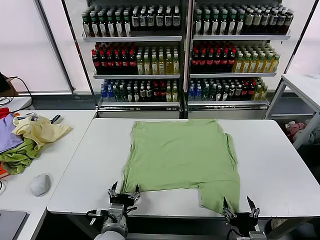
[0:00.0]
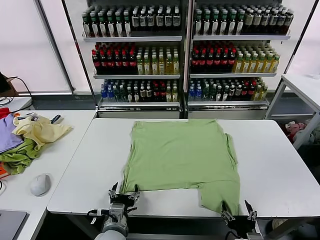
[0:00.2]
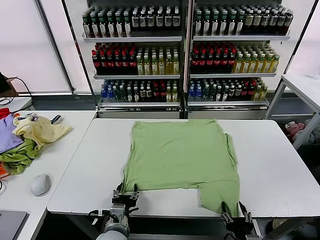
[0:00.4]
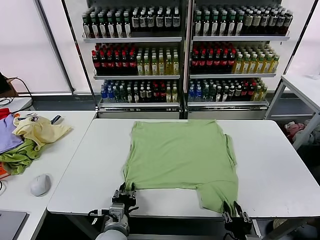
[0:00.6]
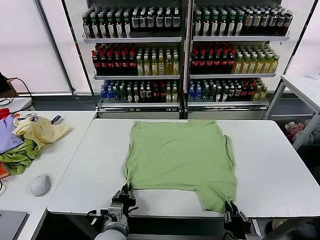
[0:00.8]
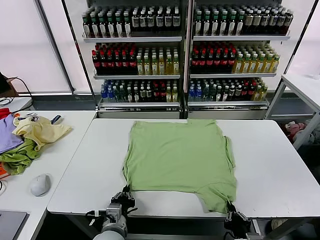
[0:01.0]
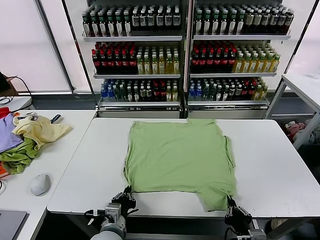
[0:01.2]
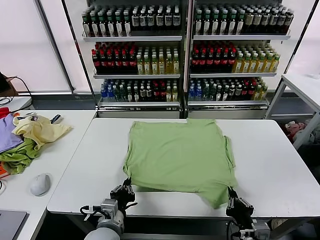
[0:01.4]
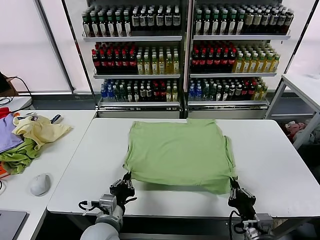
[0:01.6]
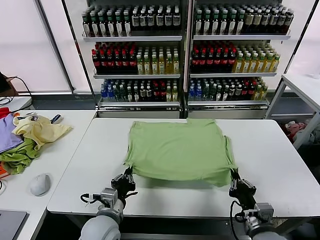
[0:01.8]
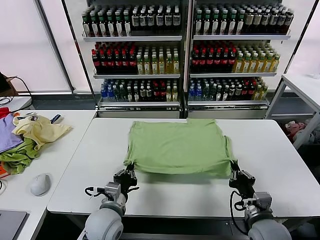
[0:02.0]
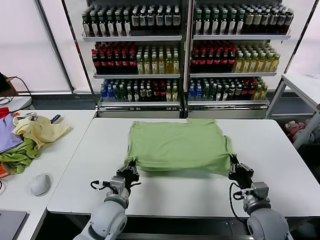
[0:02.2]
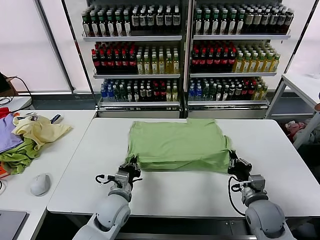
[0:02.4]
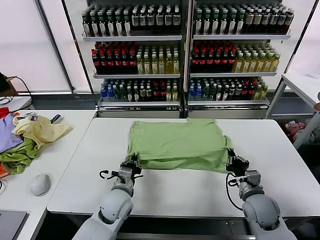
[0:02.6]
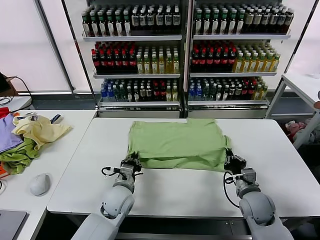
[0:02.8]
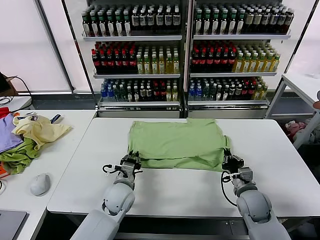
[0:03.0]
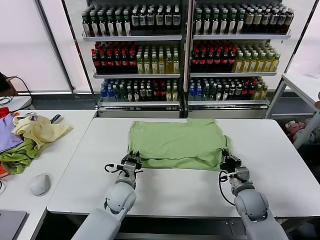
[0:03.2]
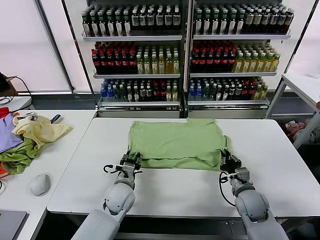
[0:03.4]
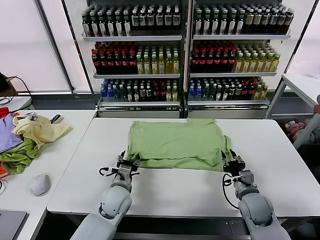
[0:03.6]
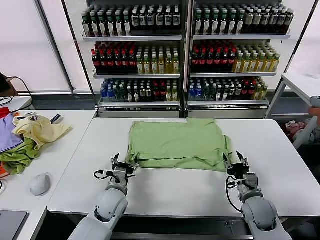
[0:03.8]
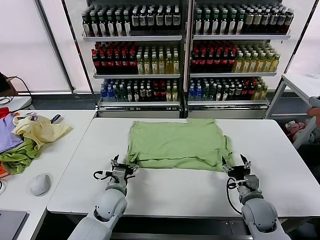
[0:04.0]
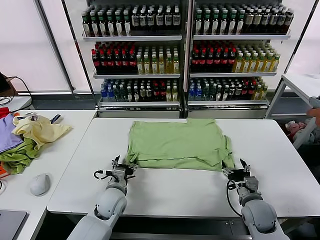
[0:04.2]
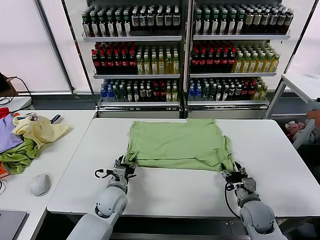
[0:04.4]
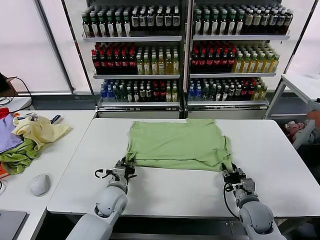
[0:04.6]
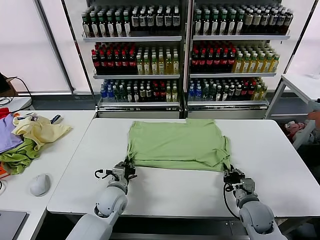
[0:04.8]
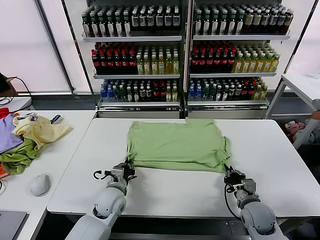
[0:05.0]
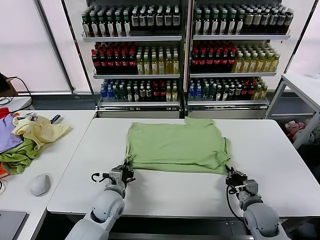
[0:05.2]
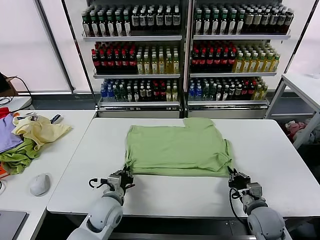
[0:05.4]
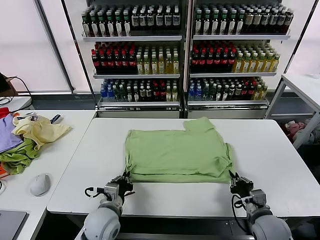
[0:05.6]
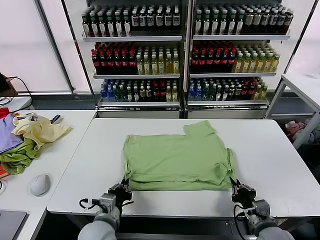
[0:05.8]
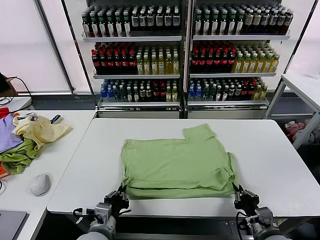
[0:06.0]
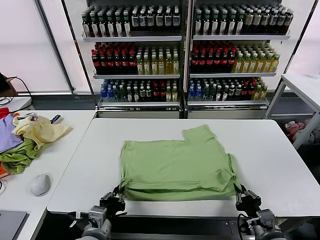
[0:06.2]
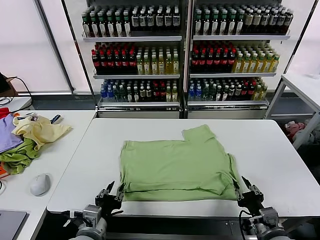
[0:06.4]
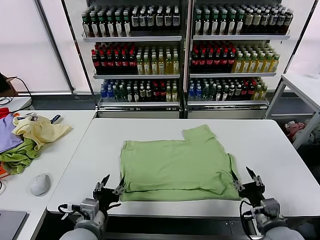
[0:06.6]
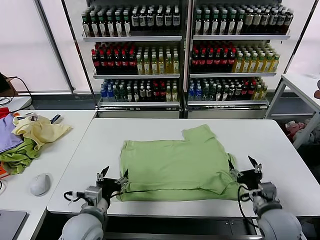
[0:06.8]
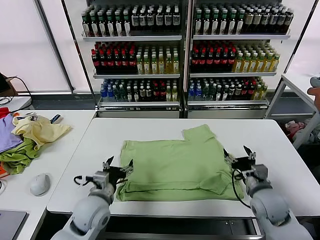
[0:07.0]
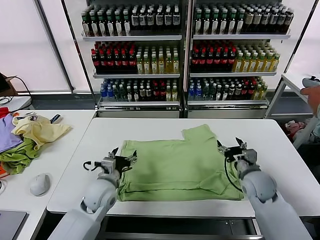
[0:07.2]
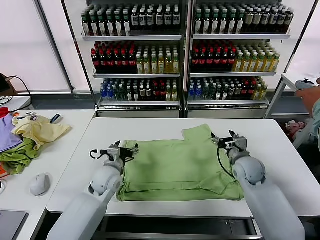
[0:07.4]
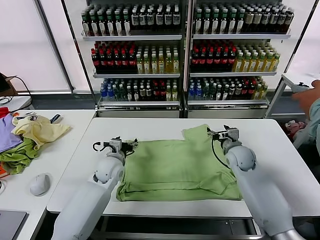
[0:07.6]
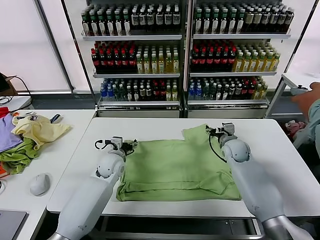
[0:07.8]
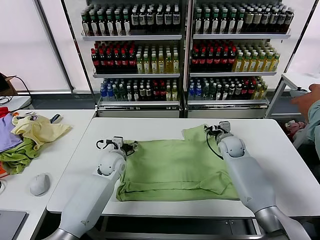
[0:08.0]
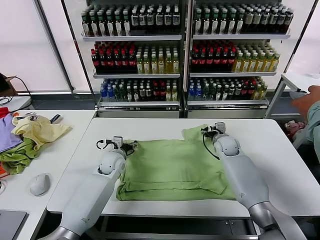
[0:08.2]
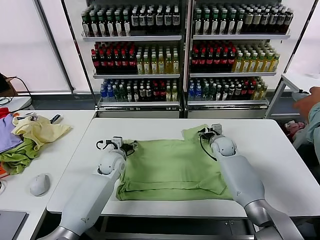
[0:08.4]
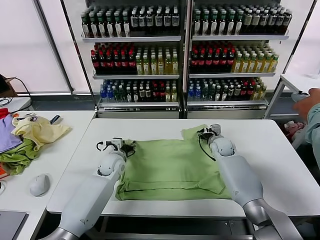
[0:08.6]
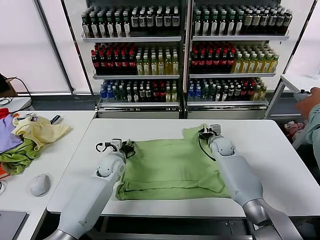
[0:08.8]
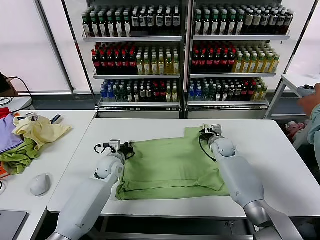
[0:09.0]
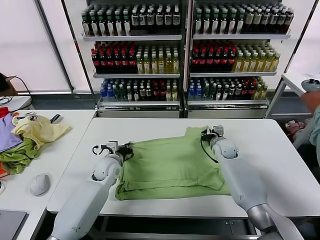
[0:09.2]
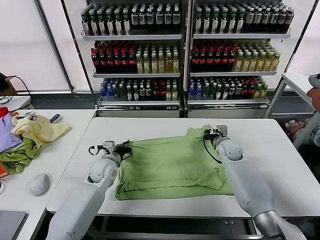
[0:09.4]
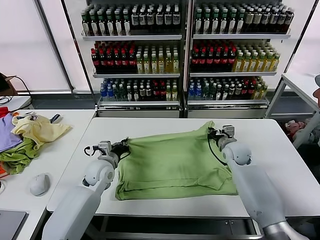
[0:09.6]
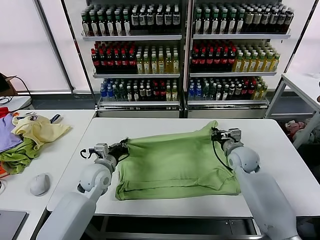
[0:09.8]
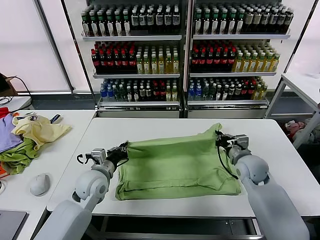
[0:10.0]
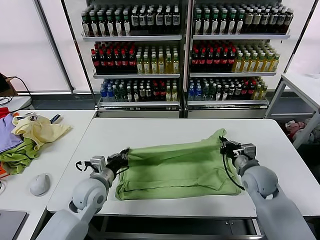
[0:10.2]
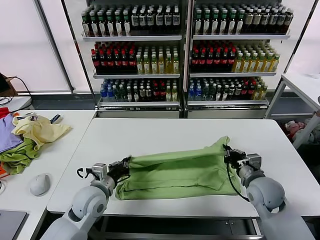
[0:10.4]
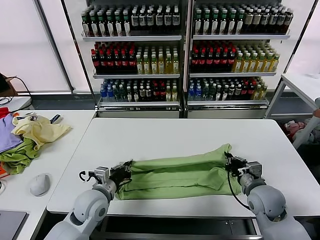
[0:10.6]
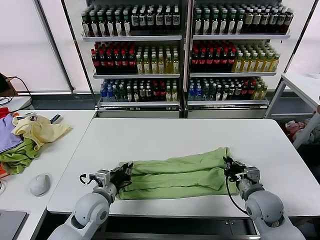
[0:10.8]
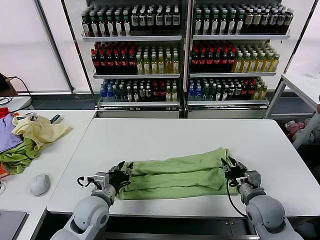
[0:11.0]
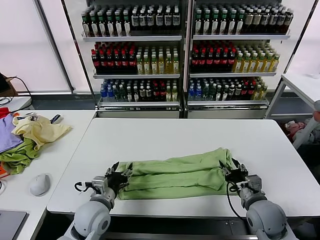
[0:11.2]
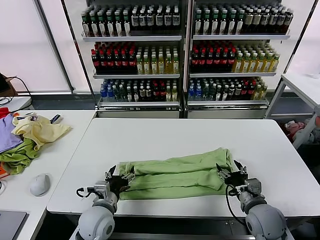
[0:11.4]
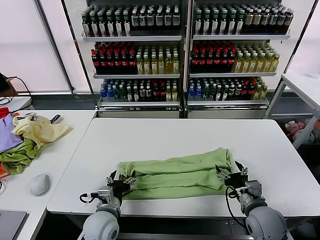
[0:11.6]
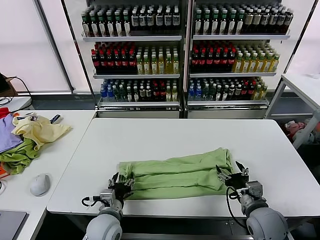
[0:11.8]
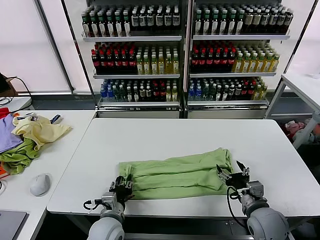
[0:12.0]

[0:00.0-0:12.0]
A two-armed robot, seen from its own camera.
Task of the whole recording: fold and organize the clothes.
Step, 0:00.0 to 0:00.8: use both grippers simultaneously to clamp the lower edge of the clothing fabric.
Step, 0:01.2 to 0:03.6: use both grippers to drag the lower edge of the fabric forward and fold it over the upper edge.
Step, 0:03.8 to 0:06.2: Drag the clothes downward with both gripper.
Step, 0:06.4 to 0:09.0: use both grippers simultaneously to clamp the upper edge of the clothing fabric.
Step, 0:09.4 to 0:11.2: use both grippers to drag the upper edge of the fabric backward and fold it over the lower edge.
0:01.6 to 0:03.0: Both grippers travel together forward, about 15 cm.
0:03.0 to 0:04.4: The left gripper opens and closes again. The right gripper opens its fingers.
0:04.4 to 0:06.0: Both grippers travel together backward, about 15 cm. The right gripper closes, while the left gripper closes.
0:06.0 to 0:07.6: The grippers both shift forward by approximately 30 cm. The left gripper opens up. The right gripper opens.
0:07.6 to 0:09.0: The left gripper closes, while the right gripper moves forward, roughly 5 cm, and closes its fingers.
0:09.0 to 0:10.4: The left gripper travels backward by some 15 cm; the right gripper goes some 25 cm backward.
0:10.4 to 0:12.0: The right gripper moves backward, about 10 cm, and opens up. Meanwhile the left gripper moves backward, downward and to the right, about 10 cm, and opens its fingers.

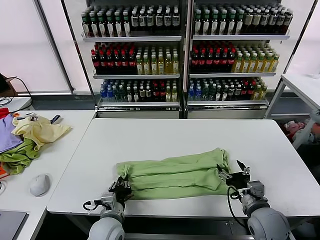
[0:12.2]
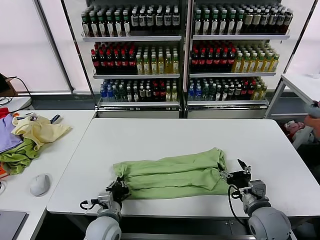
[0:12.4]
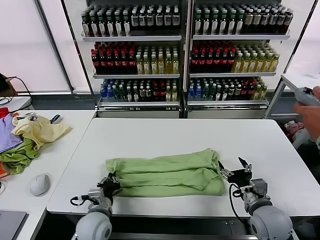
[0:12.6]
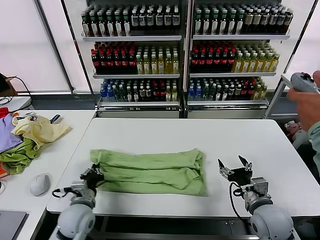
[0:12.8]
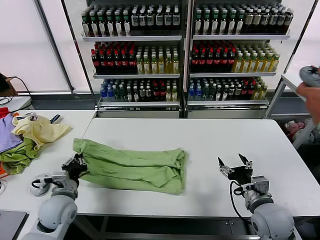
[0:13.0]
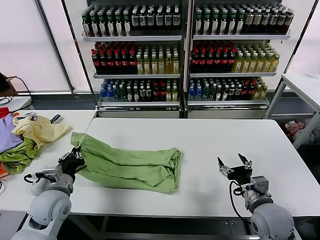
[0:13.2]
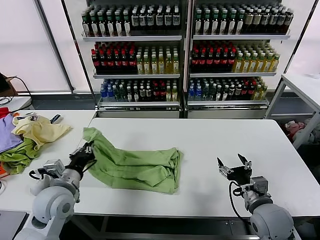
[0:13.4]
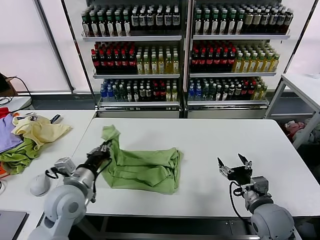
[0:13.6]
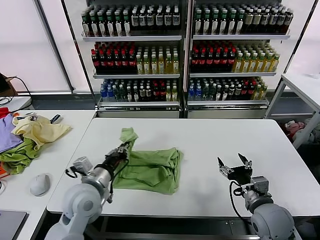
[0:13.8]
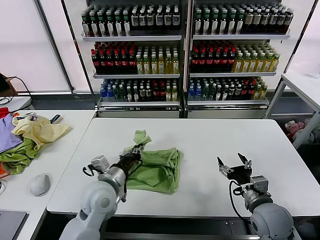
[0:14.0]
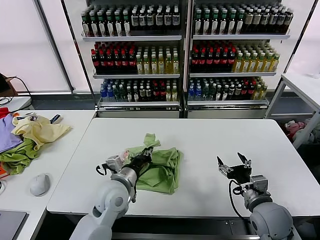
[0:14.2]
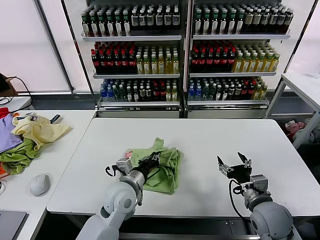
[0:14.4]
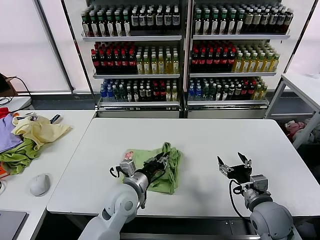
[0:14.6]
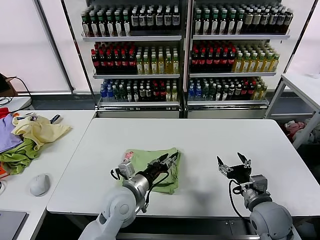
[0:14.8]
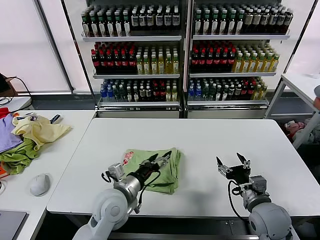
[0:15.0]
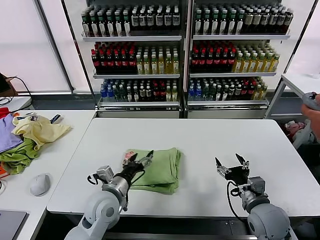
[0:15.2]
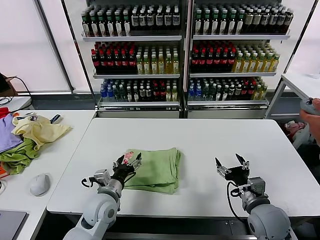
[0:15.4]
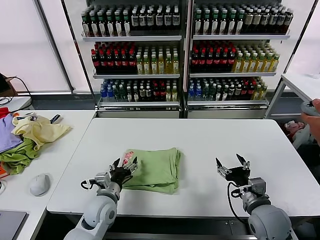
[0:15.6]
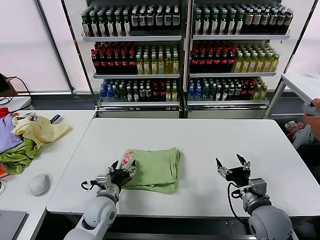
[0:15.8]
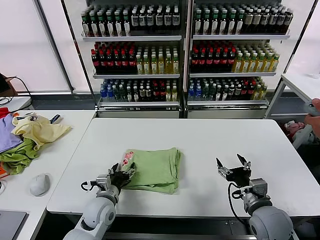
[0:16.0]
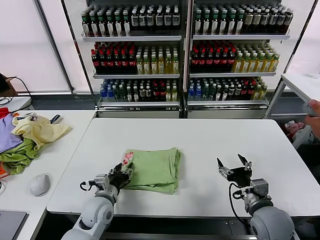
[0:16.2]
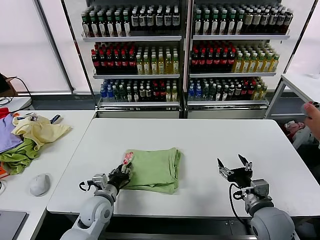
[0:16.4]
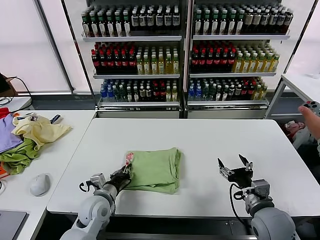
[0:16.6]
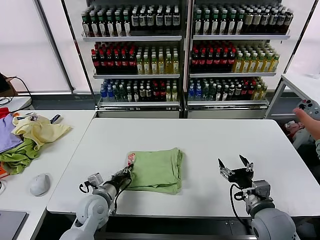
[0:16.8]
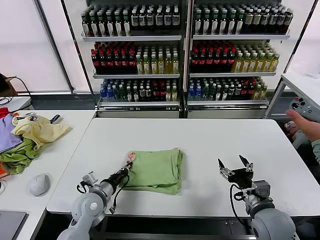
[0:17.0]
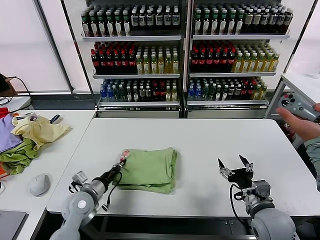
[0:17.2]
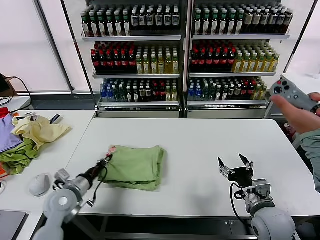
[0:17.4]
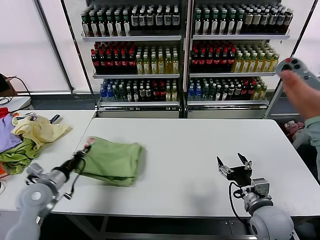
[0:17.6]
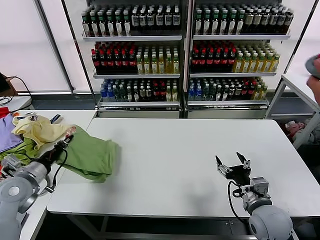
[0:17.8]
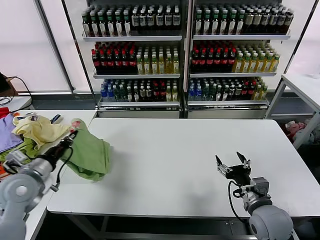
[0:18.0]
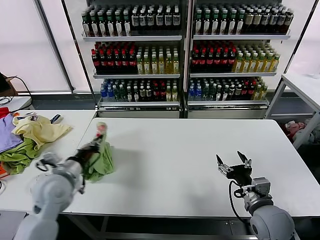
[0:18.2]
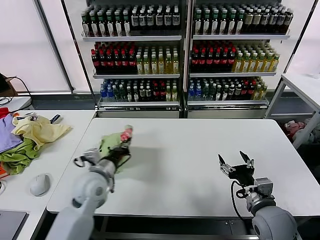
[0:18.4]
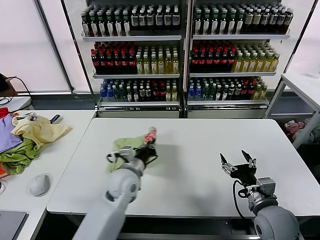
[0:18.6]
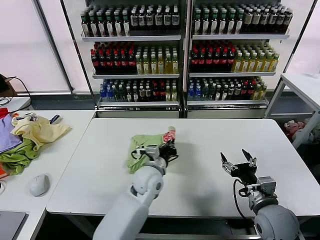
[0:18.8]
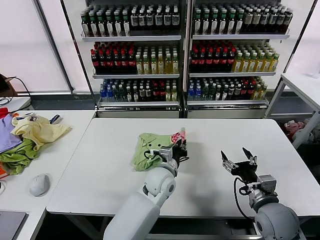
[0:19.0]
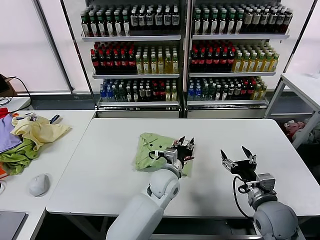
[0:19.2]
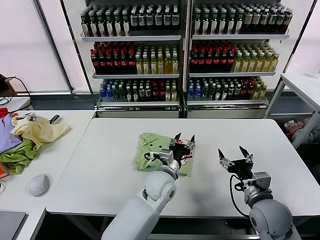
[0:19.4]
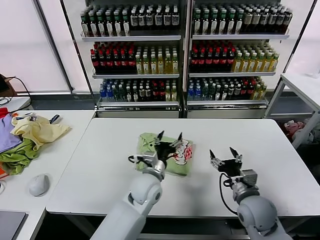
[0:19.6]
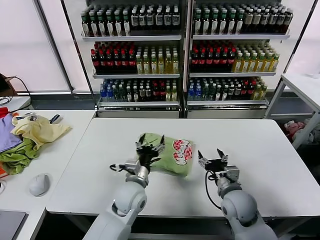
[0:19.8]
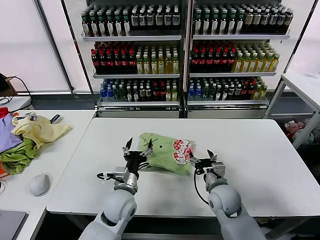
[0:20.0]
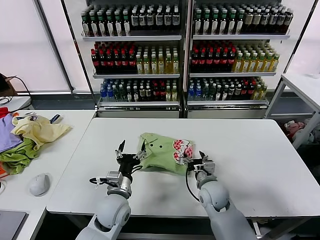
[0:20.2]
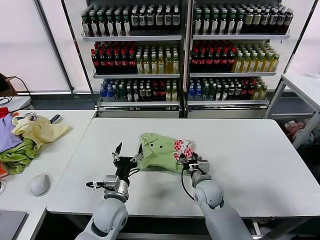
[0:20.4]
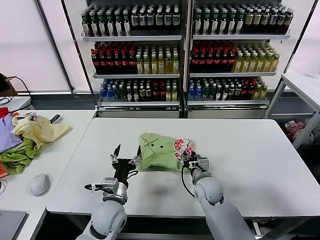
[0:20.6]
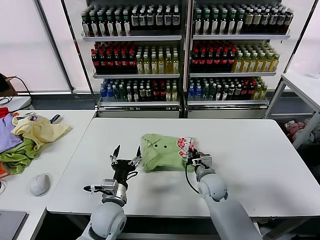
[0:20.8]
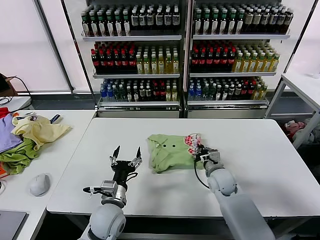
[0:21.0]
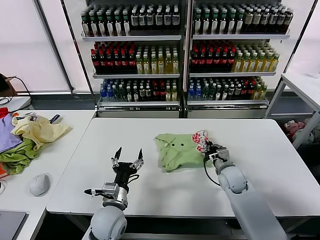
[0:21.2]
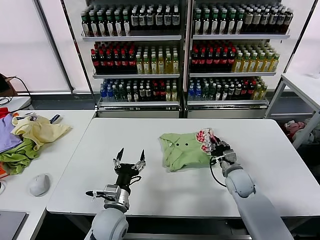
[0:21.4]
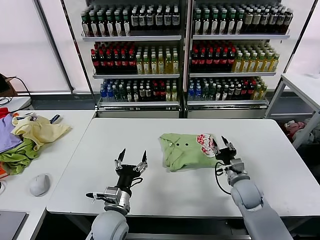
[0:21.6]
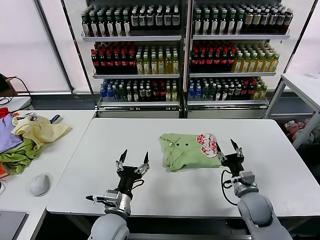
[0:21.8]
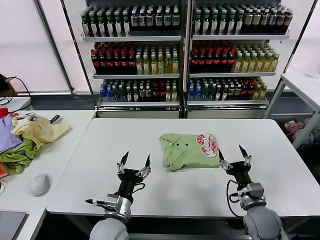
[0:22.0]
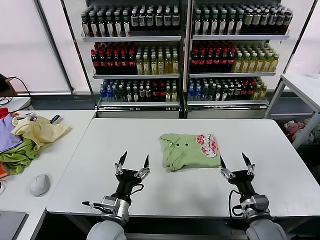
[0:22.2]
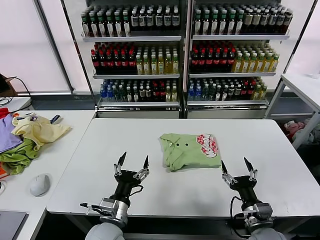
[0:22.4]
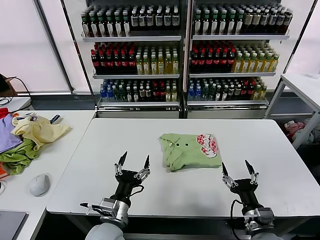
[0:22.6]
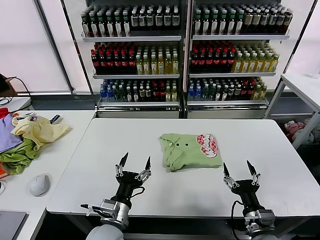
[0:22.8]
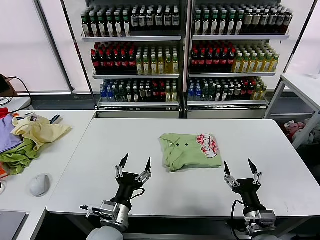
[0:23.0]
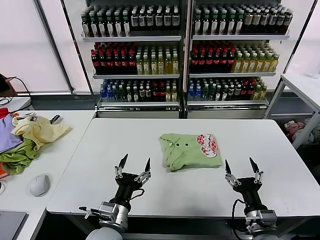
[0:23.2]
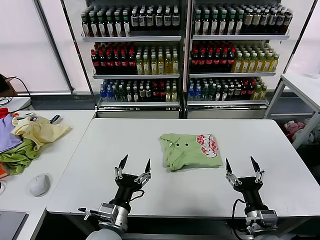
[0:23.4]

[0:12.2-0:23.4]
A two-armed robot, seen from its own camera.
Task of the whole recording: fold and organize the clothes.
Step, 0:12.6 to 0:14.6: use the left gripper to drag the left edge of the fabric to the left and folds it over the right edge.
Step, 0:15.0 to 0:19.0: Flip the folded clothes over with left gripper.
Step, 0:19.2 to 0:21.6: Drag the clothes to the center of the table.
0:12.2 to 0:13.8: The left gripper shifts about 15 cm upward, and goes to the left and returns, some 15 cm each way.
0:13.8 to 0:15.4: The left gripper moves downward, about 10 cm, reaches about 10 cm to the right, then returns, and opens up.
0:15.4 to 0:17.0: The left gripper is displaced to the left by roughly 5 cm, and closes.
0:17.0 to 0:18.6: The left gripper shifts some 15 cm to the right and upward.
0:18.6 to 0:20.2: The left gripper is displaced backward by about 5 cm, moves roughly 15 cm to the right and comes back, and opens; the right gripper travels to the left, forward and downward by roughly 20 cm.
0:20.2 to 0:21.8: The right gripper shifts approximately 10 cm to the right, and closes, then reopens; the left gripper moves backward, some 5 cm.
0:21.8 to 0:23.4: The right gripper heads backward, covering approximately 15 cm. The left gripper moves some 5 cm.
